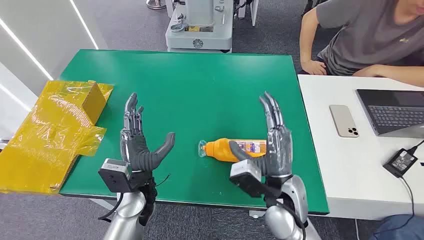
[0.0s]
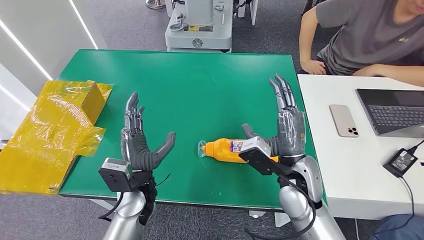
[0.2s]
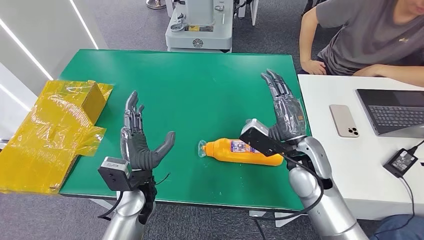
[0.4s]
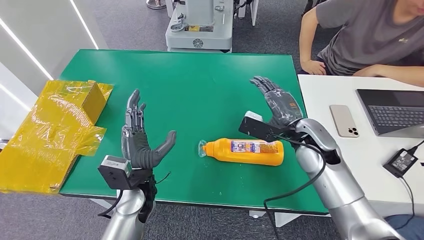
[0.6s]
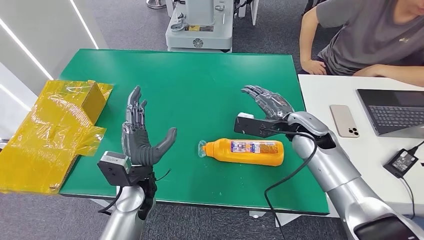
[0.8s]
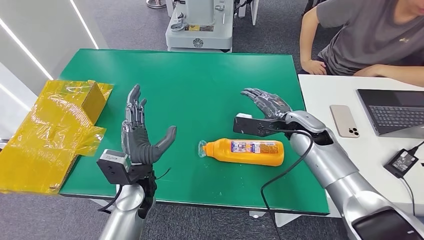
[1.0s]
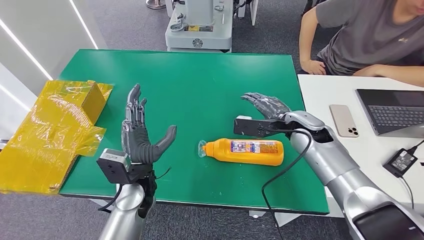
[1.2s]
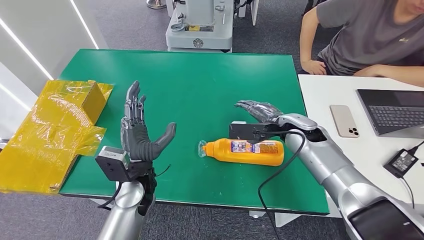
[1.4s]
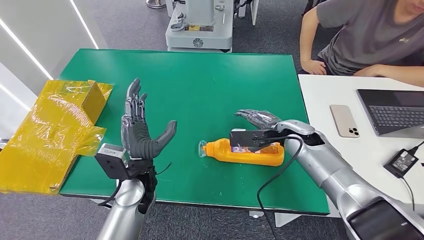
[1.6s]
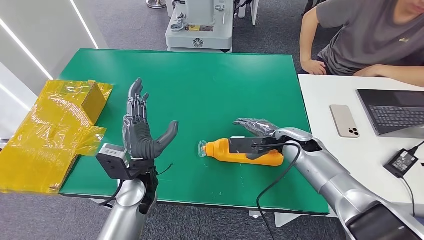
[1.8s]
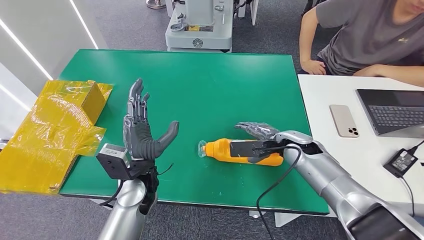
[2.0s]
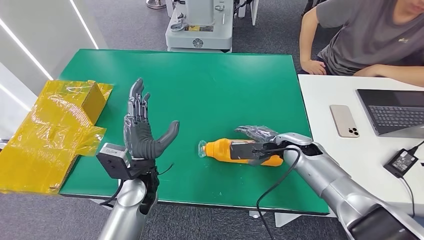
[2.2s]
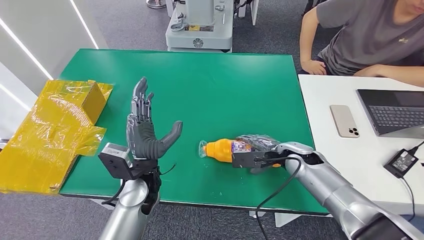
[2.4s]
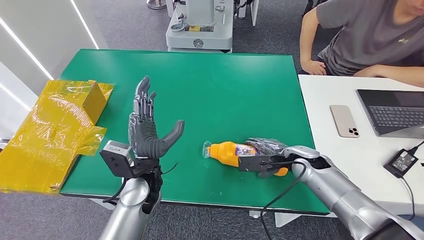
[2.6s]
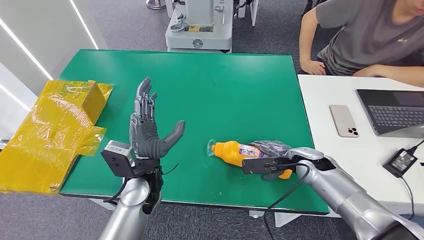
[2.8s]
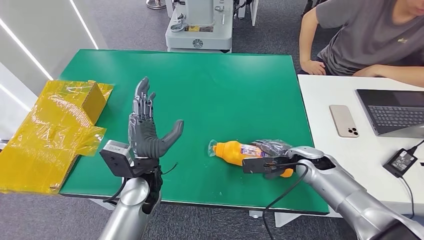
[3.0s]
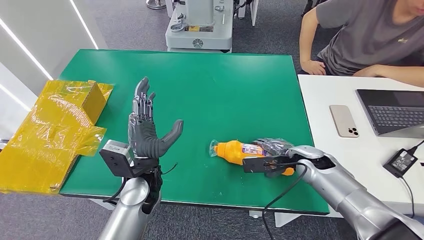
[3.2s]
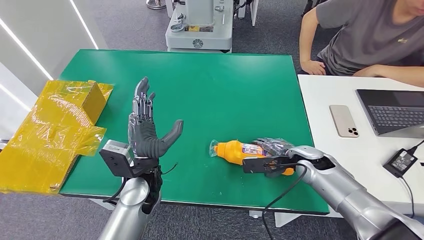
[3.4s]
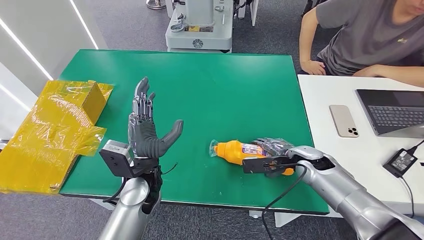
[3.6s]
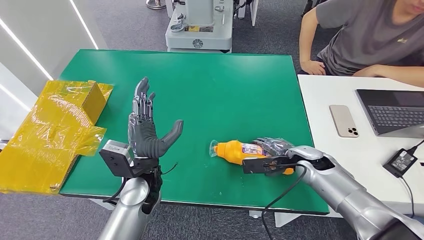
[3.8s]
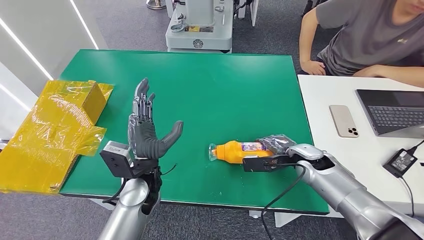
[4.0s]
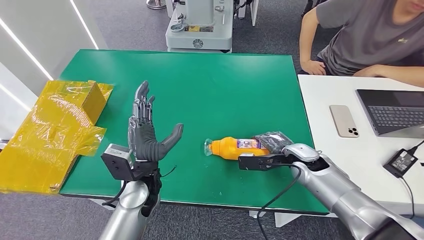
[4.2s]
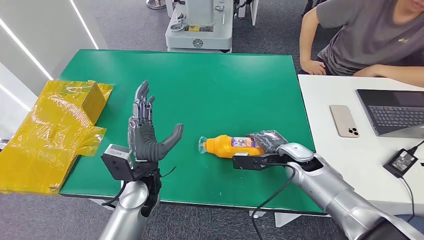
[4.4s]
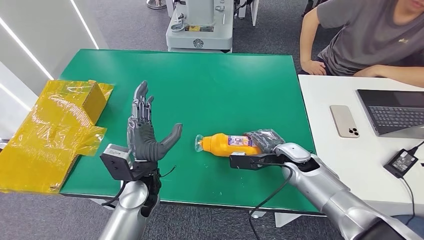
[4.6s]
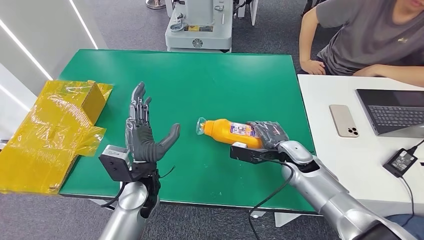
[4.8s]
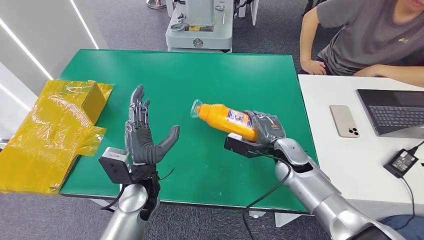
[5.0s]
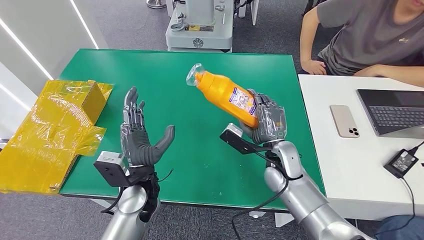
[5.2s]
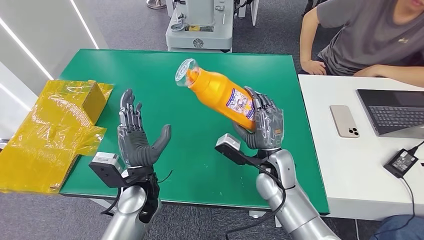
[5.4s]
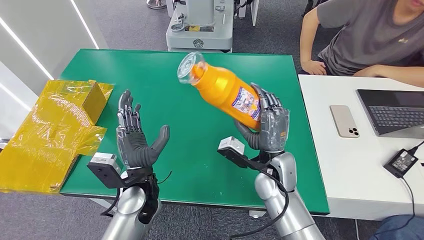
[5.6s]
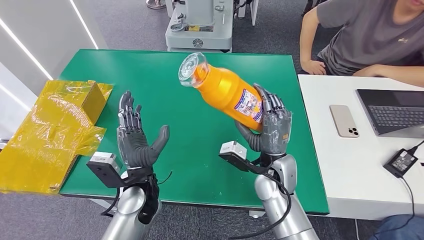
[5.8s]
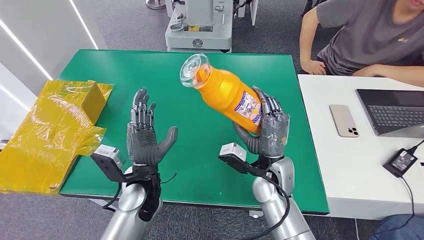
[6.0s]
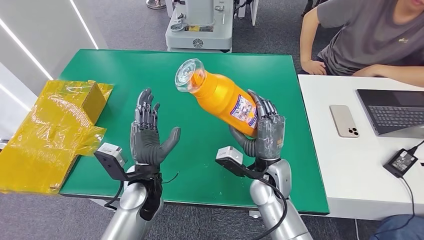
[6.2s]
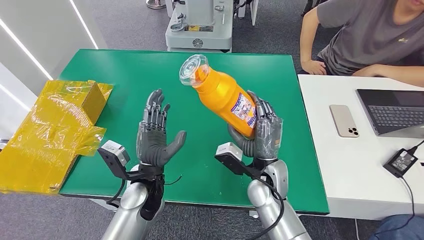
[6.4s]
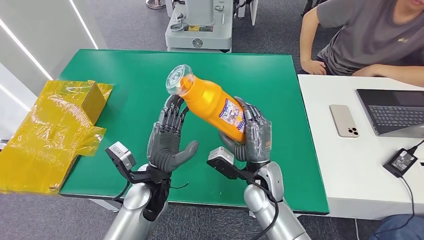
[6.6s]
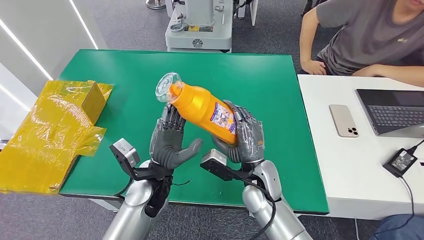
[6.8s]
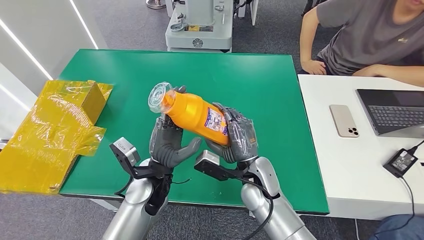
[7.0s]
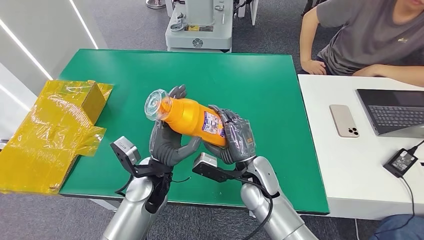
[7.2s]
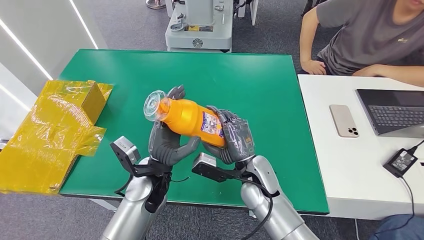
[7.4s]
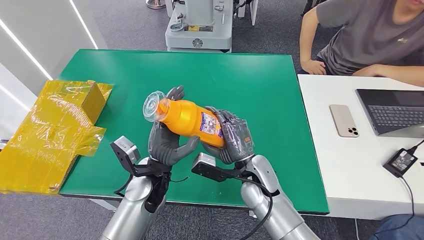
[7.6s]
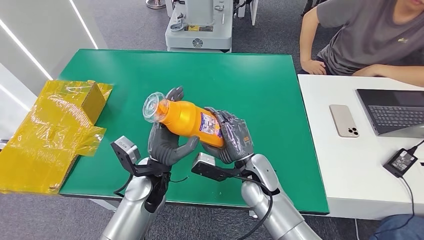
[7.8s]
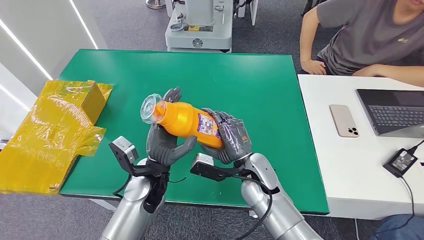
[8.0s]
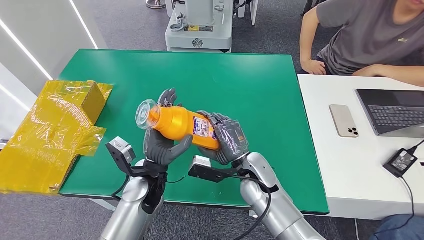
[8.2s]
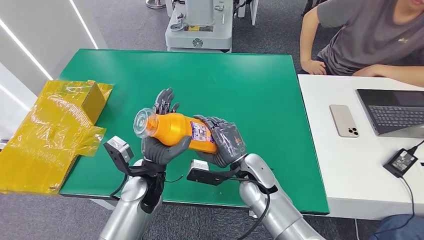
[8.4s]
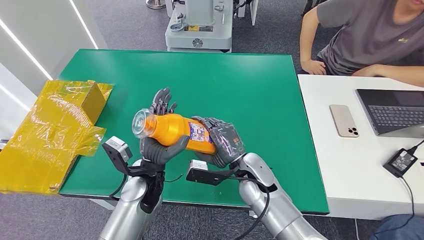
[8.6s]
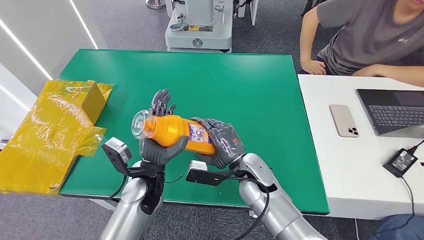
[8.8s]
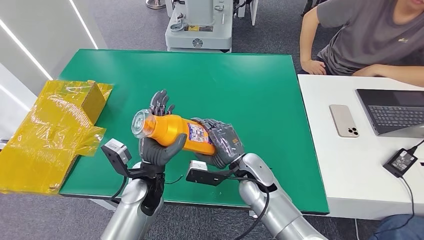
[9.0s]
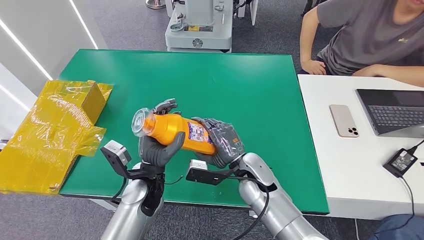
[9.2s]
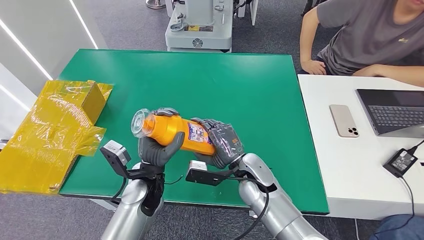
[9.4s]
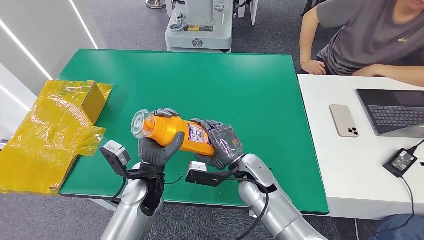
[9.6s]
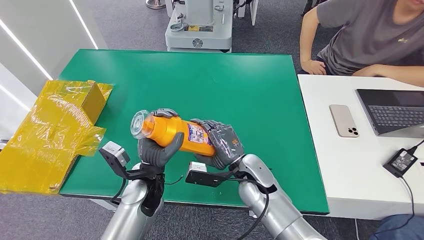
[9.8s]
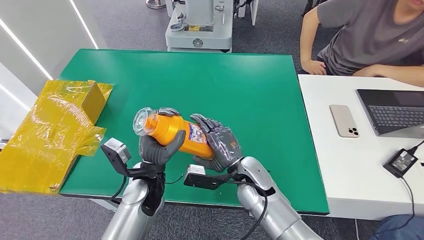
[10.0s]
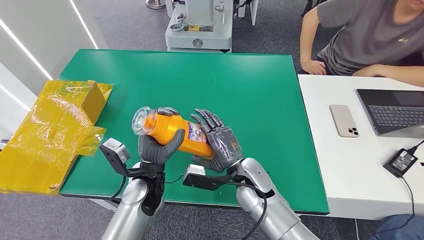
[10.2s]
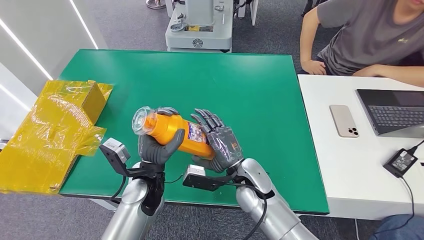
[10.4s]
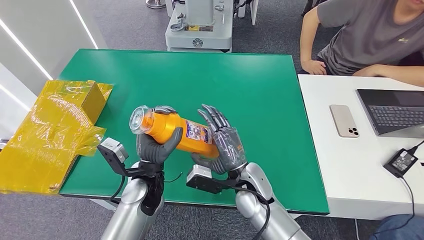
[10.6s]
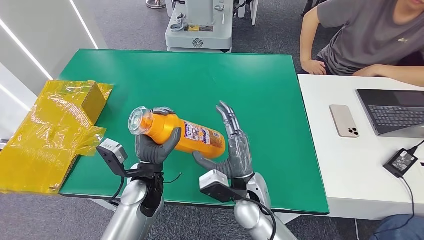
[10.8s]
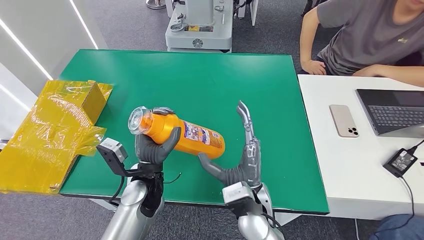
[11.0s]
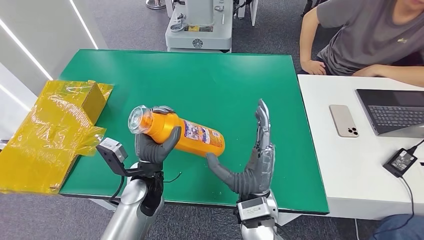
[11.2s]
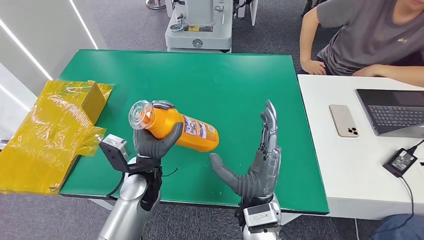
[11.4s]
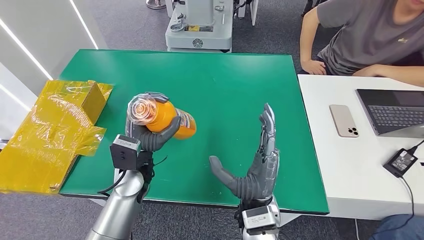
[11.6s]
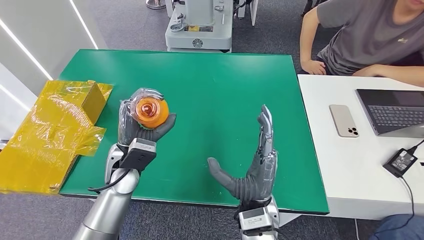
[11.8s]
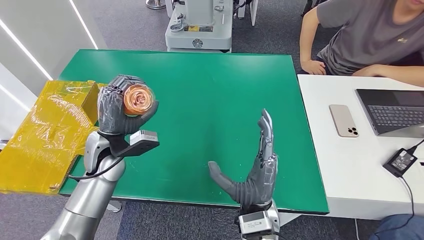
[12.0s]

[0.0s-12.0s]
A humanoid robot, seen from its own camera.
Step, 0.0s to 5.4s: Pick up the bottle from the table.
1.6s to 3.0s: The right hand heads downward and to the right, covering some 10 cm.
3.0s to 4.4s: There are only small adjustments of the hands.
4.4s to 6.0s: The right hand shifts some 15 cm to the left and backward.
7.6s to 10.4s: The hands stay close to where they were, moving slightly.
10.4s to 12.0s: The right hand goes roughly 10 cm backward. The left hand heads to the left, forward and upward, covering approximately 15 cm.

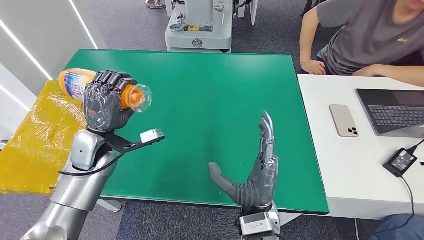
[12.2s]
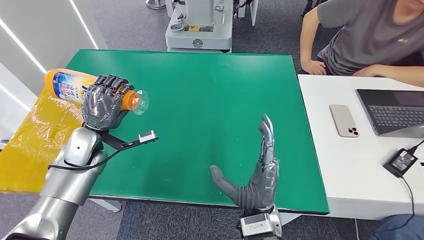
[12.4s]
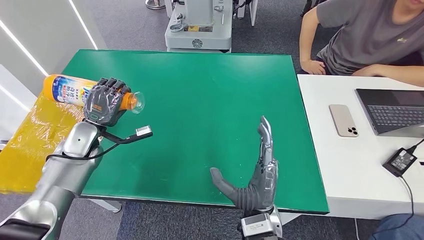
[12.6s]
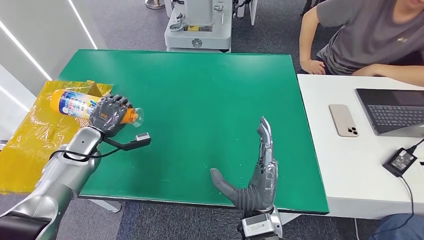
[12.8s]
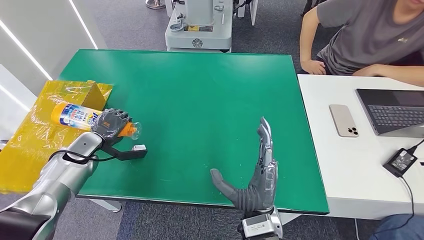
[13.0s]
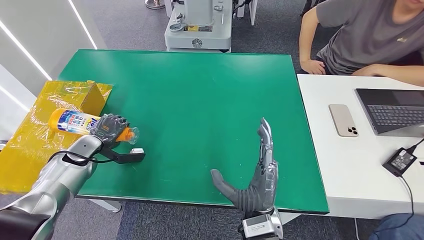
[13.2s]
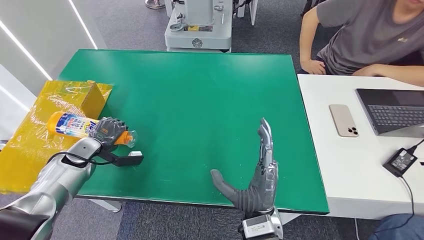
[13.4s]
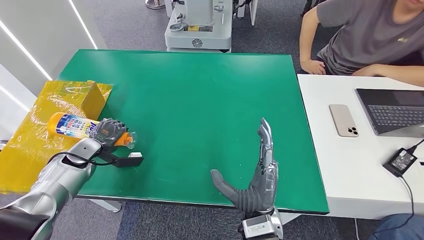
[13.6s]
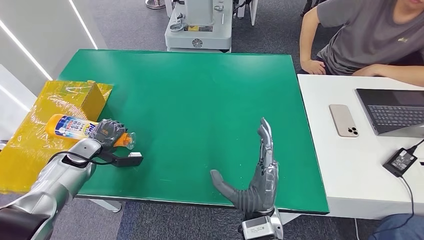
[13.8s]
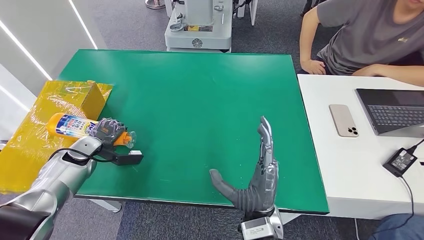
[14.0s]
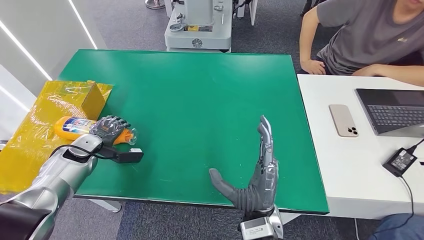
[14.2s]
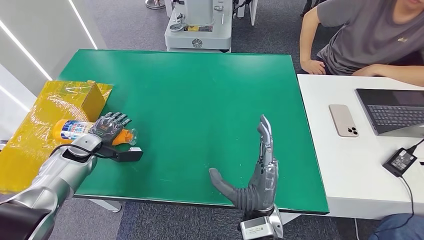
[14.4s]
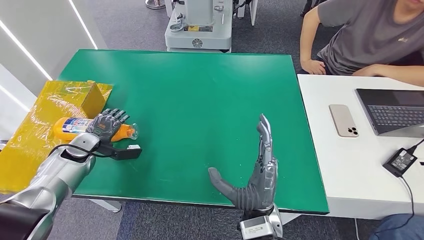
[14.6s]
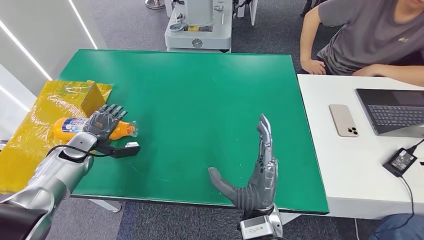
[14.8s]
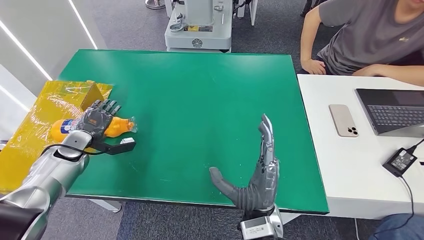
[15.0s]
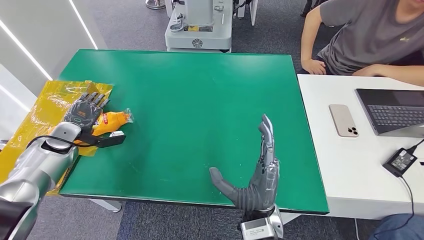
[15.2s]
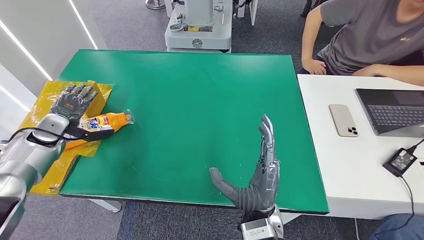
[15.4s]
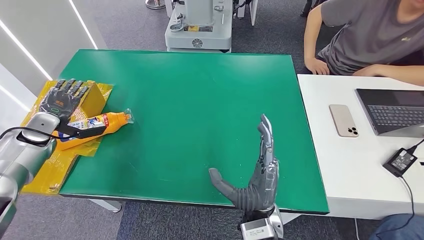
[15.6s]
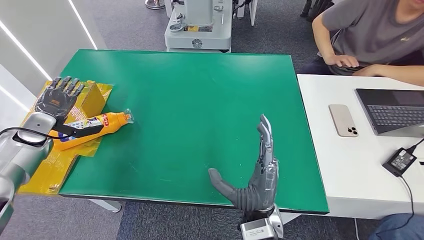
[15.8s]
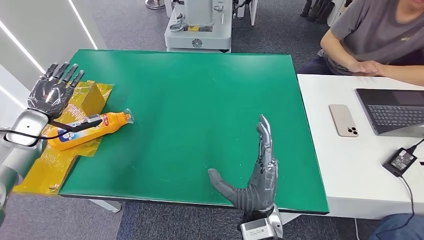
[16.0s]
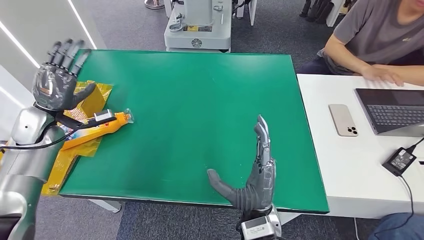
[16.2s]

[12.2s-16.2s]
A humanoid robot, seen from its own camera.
Step, 12.2s to 16.2s: Turn the bottle to the front side.
12.2s to 13.6s: The left hand heads to the left and downward, covering some 15 cm.
13.6s to 14.8s: There are only small adjustments of the hands.
14.8s to 16.2s: The left hand is displaced upward by approximately 10 cm.

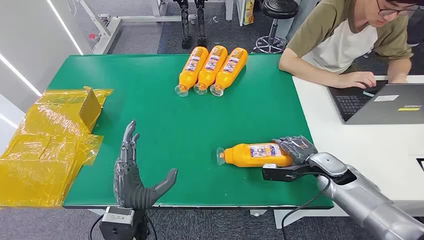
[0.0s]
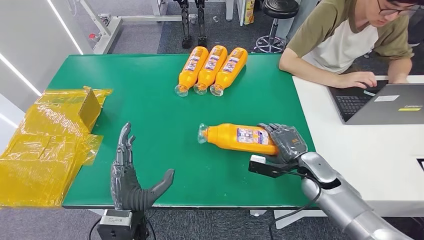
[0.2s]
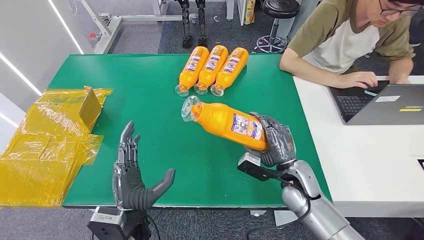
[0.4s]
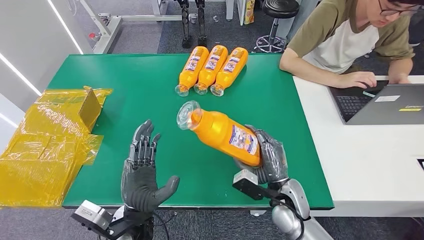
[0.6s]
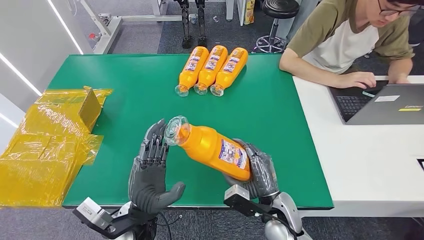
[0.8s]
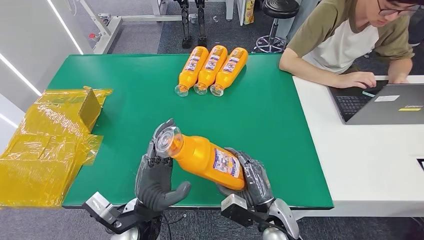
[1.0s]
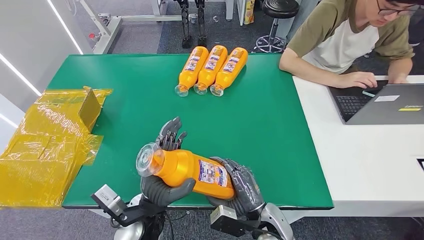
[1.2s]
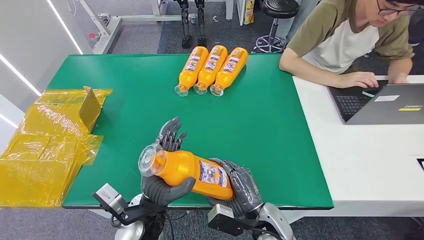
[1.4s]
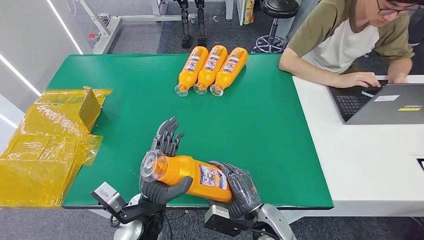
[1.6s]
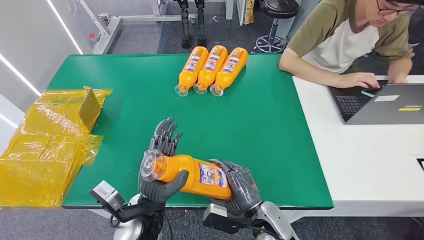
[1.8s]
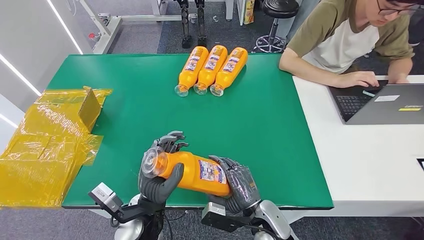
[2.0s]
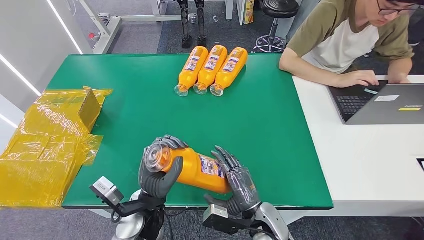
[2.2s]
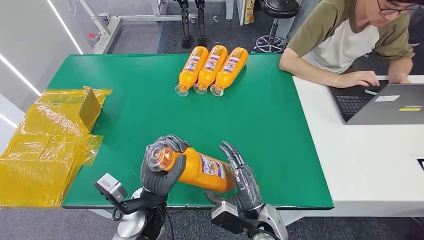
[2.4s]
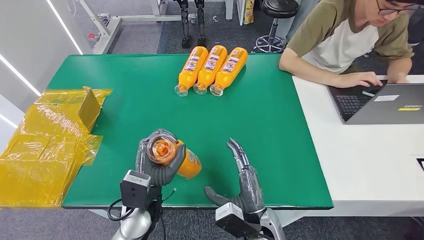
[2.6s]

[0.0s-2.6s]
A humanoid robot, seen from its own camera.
Step, 0.0s to 2.2s: Pick up the bottle from the table.
